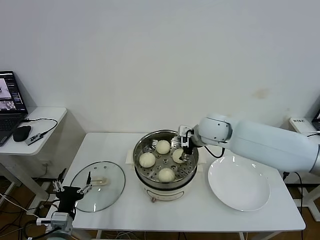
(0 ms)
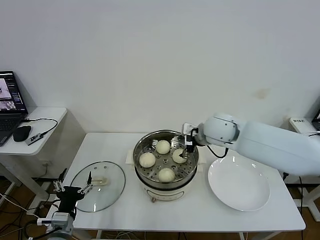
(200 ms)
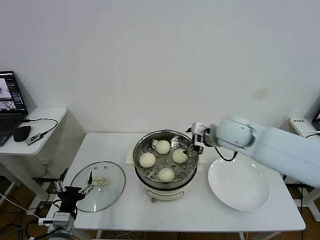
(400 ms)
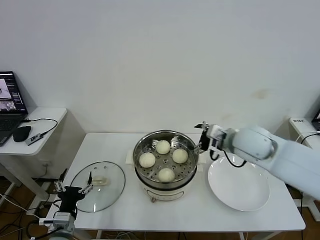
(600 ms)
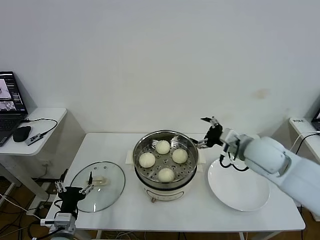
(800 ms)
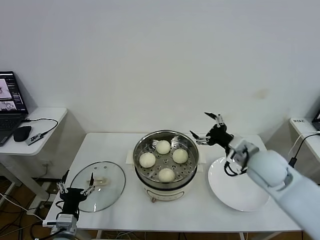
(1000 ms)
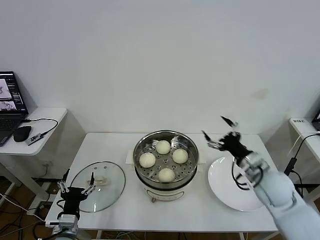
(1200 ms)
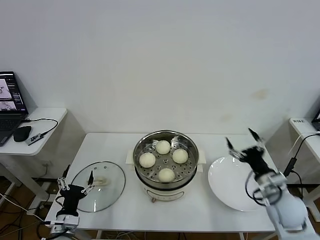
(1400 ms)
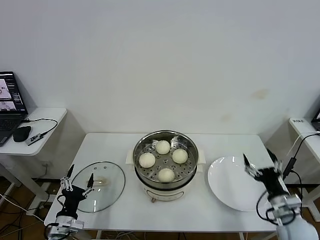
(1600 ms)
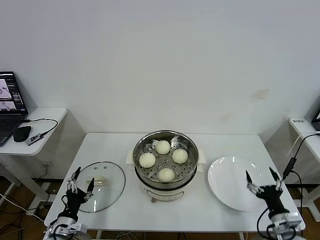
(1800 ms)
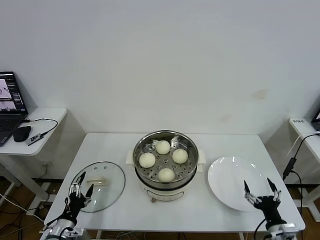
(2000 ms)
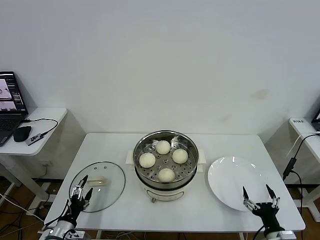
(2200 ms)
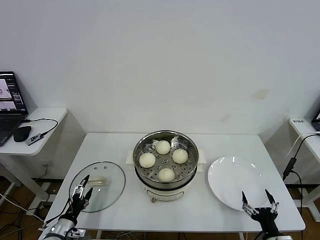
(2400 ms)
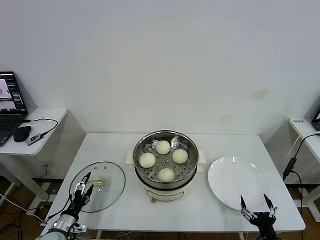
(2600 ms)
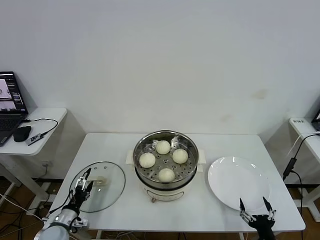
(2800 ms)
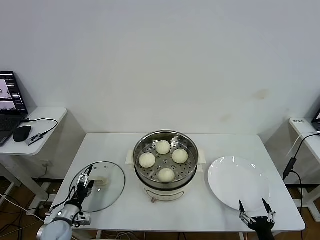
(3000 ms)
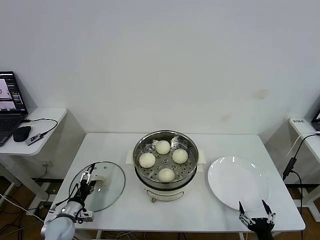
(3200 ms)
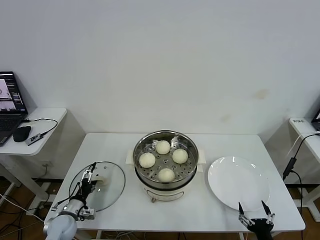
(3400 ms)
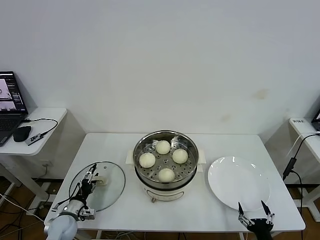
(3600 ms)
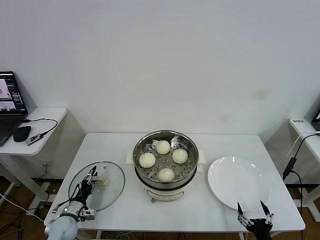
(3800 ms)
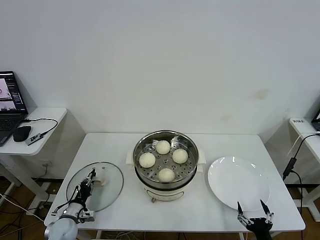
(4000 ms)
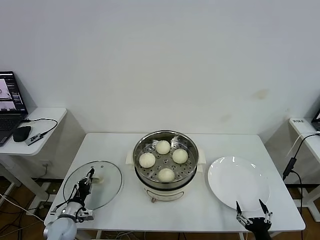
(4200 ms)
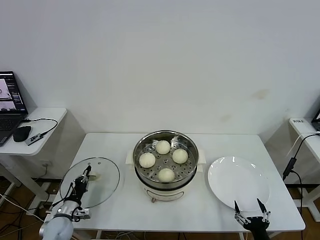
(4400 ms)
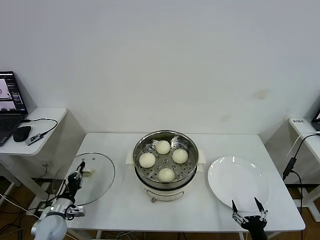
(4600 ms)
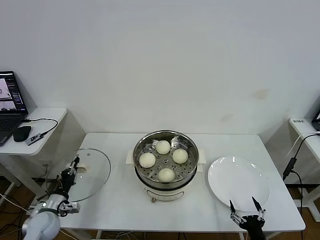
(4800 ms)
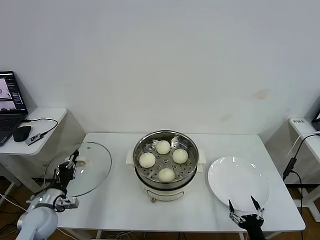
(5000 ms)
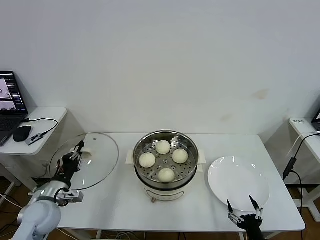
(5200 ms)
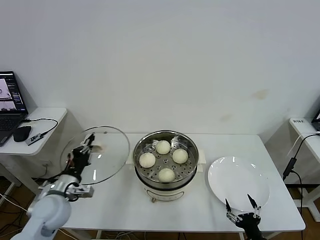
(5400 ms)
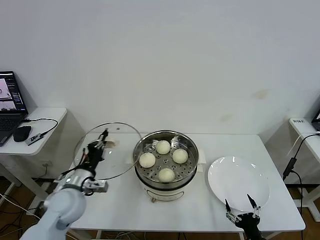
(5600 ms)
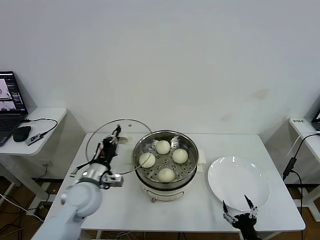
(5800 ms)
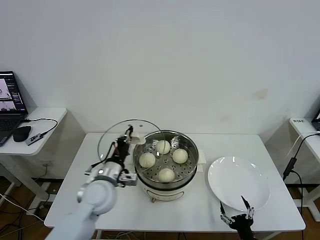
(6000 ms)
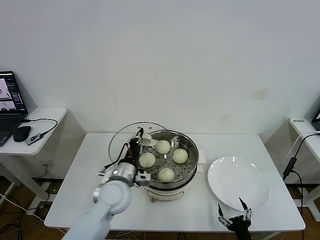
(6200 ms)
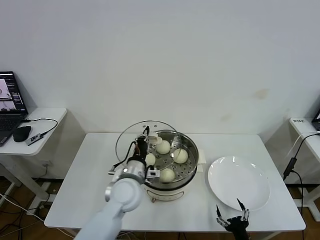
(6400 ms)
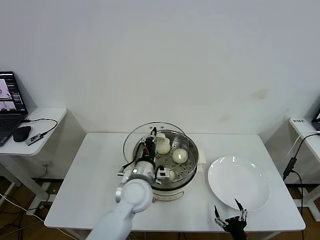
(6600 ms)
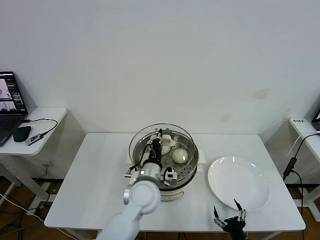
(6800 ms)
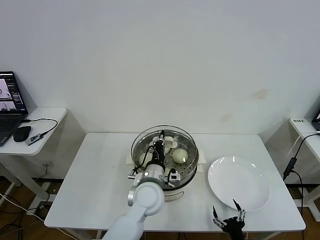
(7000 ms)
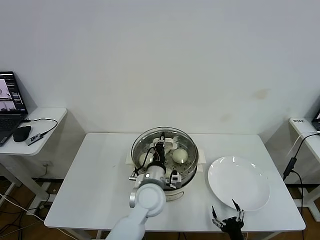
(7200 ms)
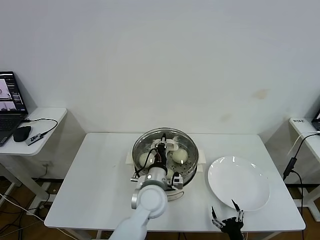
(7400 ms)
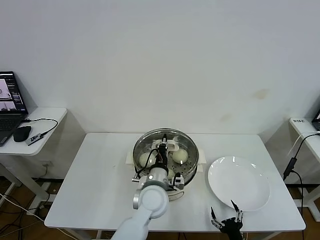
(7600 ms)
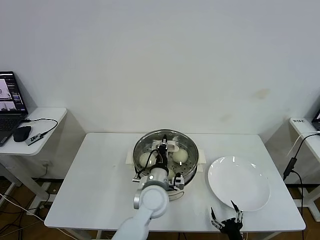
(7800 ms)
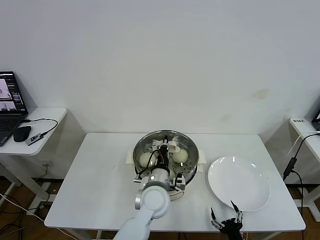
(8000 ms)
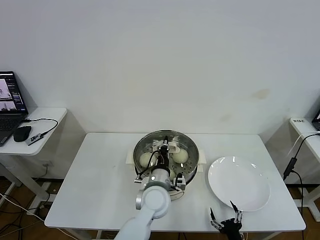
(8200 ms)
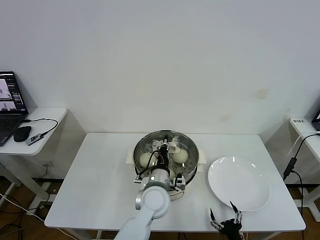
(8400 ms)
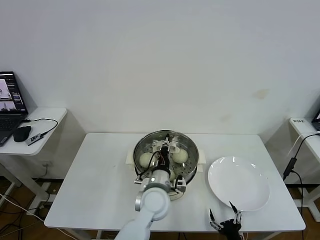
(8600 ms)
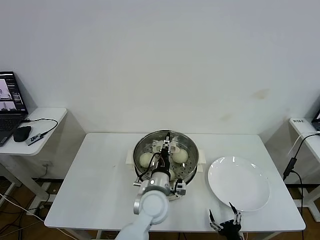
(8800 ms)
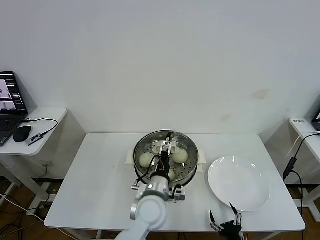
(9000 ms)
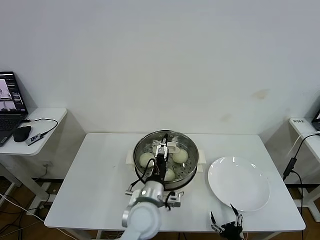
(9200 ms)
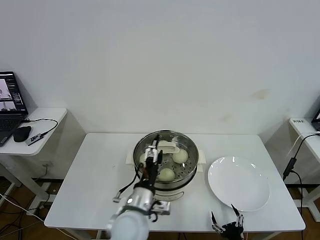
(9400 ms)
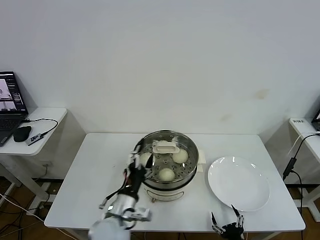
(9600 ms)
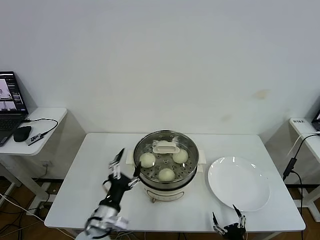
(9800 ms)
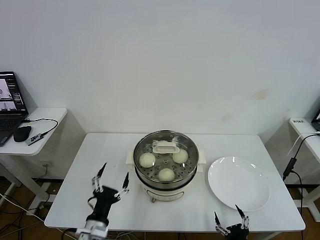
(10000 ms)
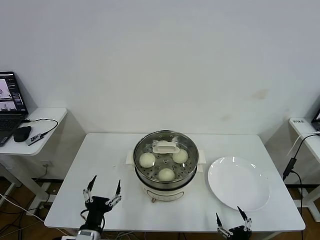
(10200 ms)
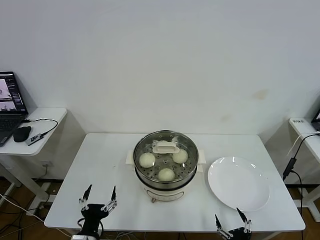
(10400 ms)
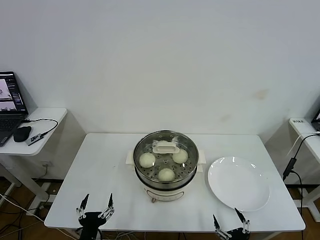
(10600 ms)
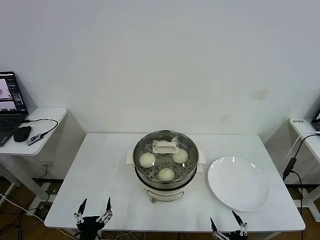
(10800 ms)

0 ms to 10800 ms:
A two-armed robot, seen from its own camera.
Task of the whole recording: take steamed baozi put them in steamer then cover it.
Step, 0 ms to 4200 ms: Grasp the pot lid with left gripper.
Step, 4400 ms to 8600 ms: Place the pot lid on the steamer with left gripper.
0 ms to 1600 ms: The right gripper travels backward, to the right and downward by roughly 35 cm; the left gripper ends up approximately 5 cm from where it was.
1600 ms to 3000 ms: The right gripper is displaced backward and downward by some 15 cm, while the left gripper is displaced forward and downward by some 10 cm.
3000 ms to 4600 ms: The left gripper closes its fingers.
4600 ms to 6200 ms: The left gripper goes about 30 cm to the right and upward.
6200 ms to 7800 ms: The left gripper travels to the right by about 15 cm.
7800 ms to 9200 ms: The left gripper opens its fingers.
9200 ms to 10800 ms: The left gripper heads to the left, backward and downward, covering roughly 25 cm; the right gripper moves upward, approximately 5 cm.
